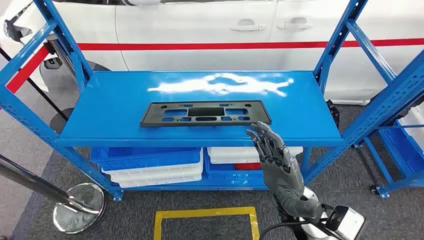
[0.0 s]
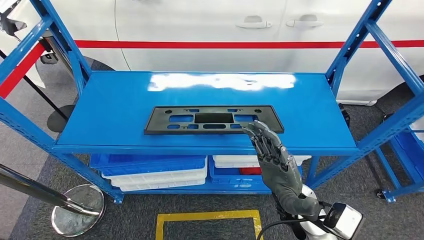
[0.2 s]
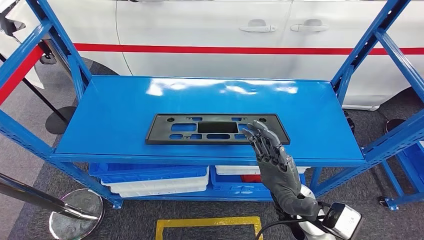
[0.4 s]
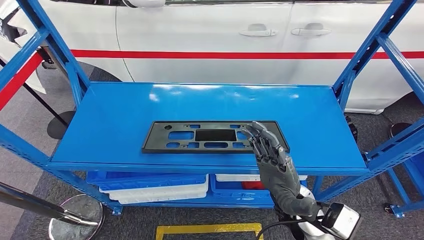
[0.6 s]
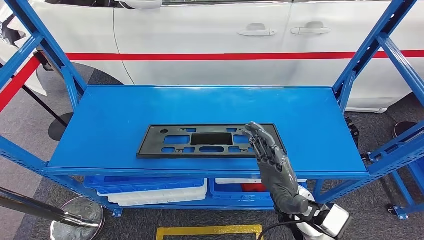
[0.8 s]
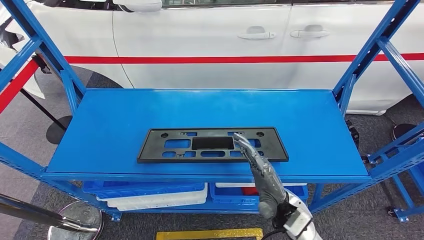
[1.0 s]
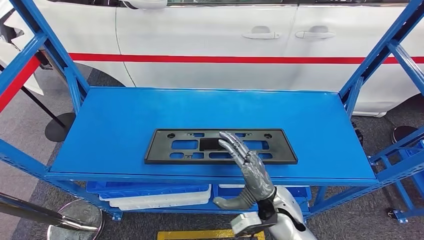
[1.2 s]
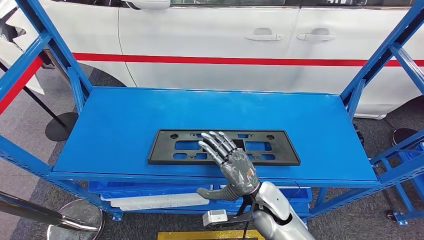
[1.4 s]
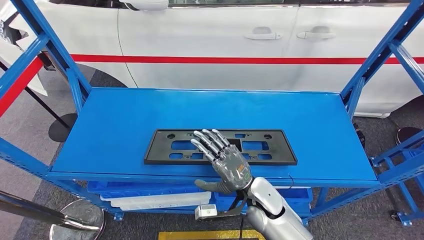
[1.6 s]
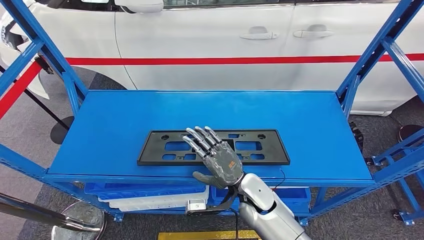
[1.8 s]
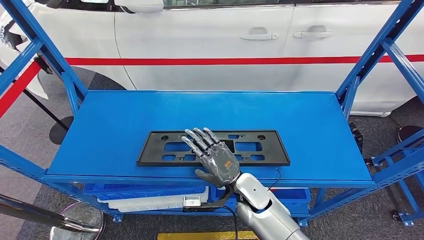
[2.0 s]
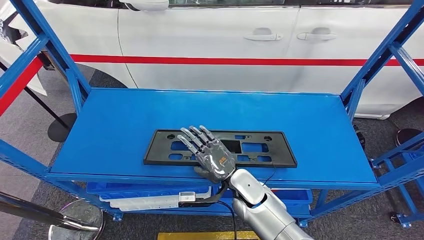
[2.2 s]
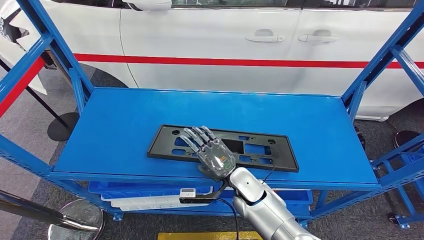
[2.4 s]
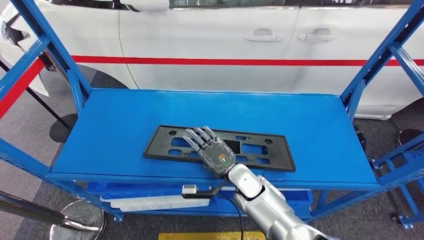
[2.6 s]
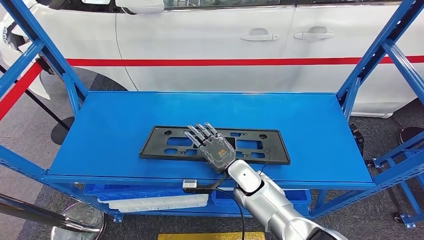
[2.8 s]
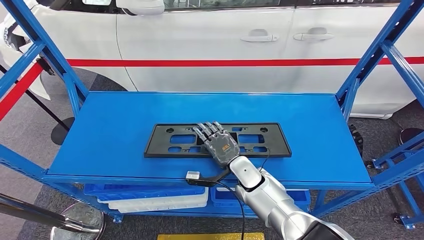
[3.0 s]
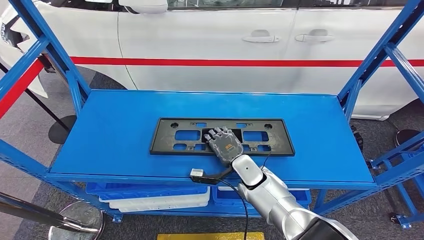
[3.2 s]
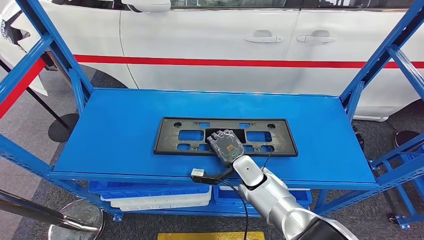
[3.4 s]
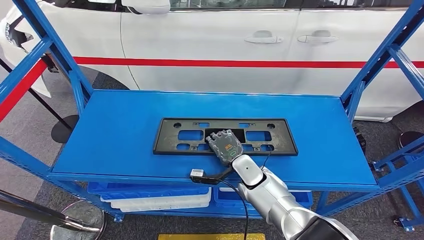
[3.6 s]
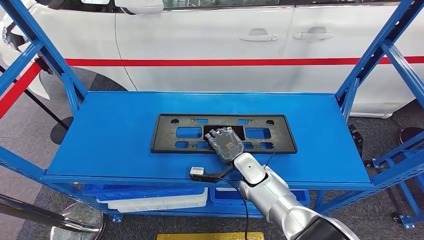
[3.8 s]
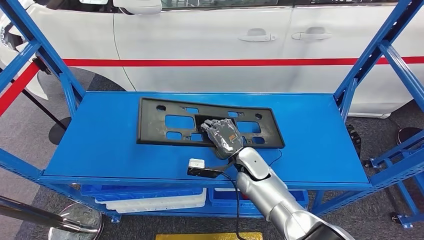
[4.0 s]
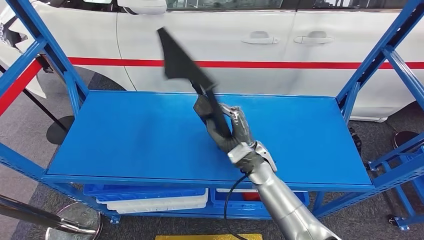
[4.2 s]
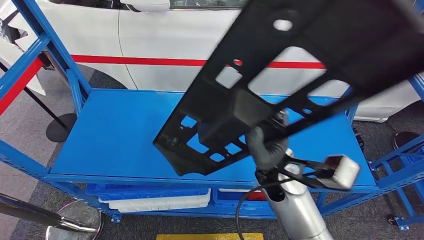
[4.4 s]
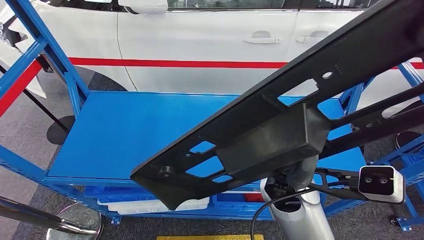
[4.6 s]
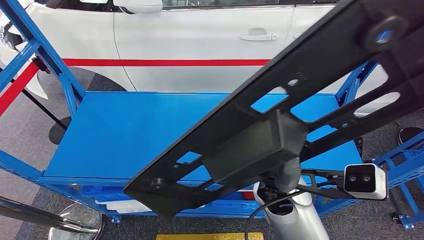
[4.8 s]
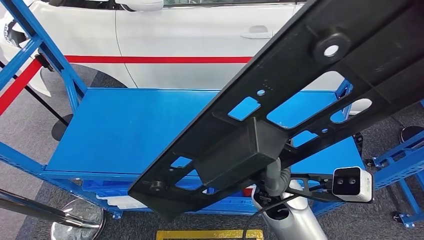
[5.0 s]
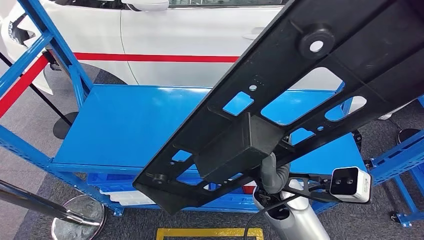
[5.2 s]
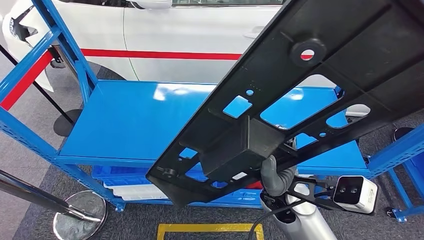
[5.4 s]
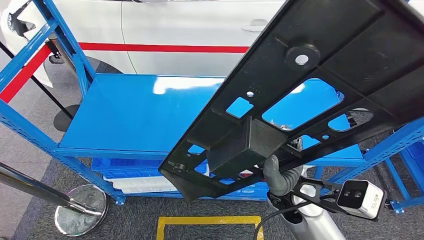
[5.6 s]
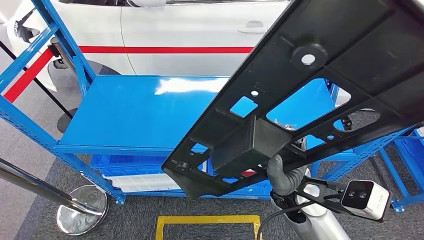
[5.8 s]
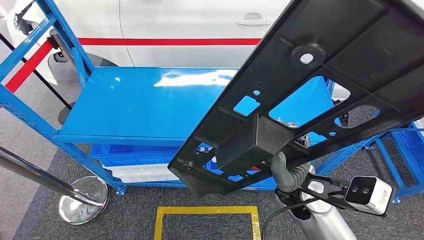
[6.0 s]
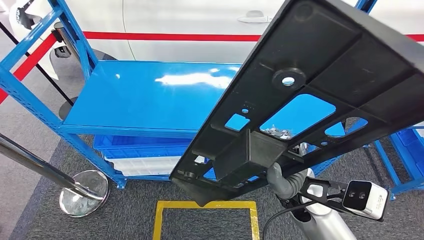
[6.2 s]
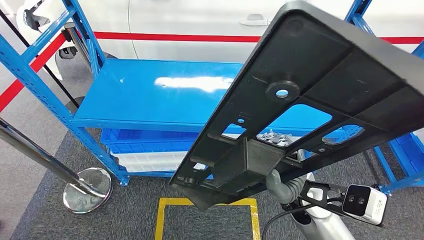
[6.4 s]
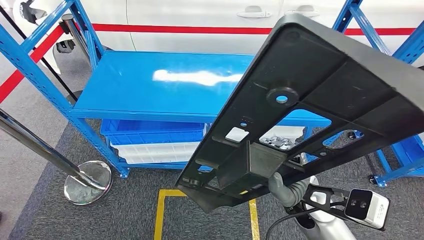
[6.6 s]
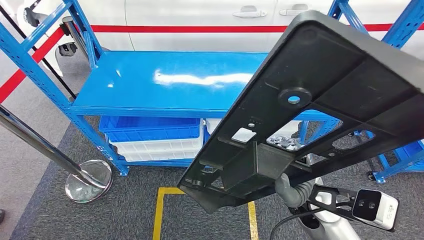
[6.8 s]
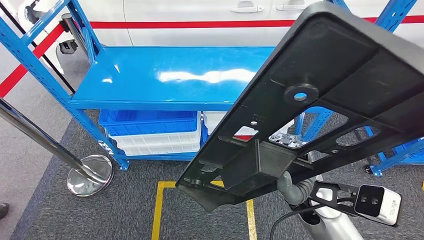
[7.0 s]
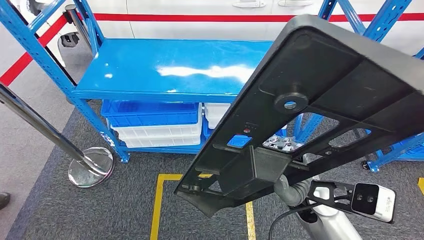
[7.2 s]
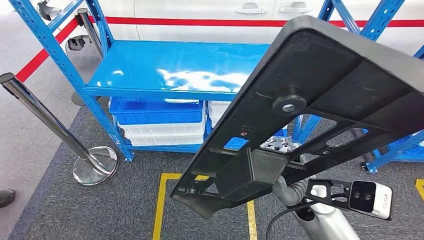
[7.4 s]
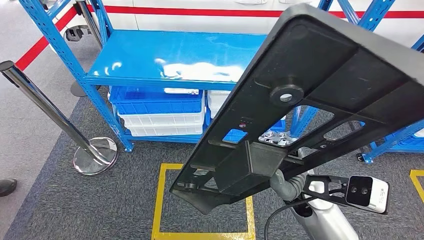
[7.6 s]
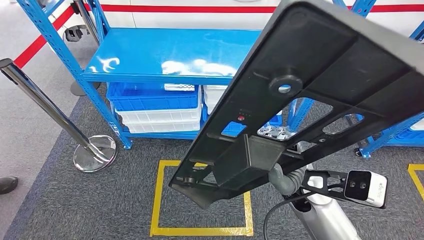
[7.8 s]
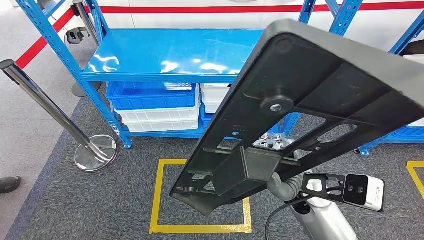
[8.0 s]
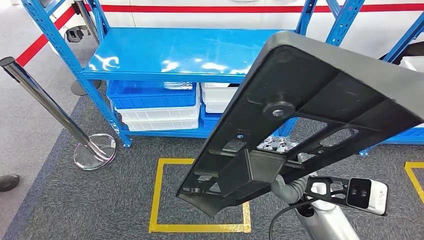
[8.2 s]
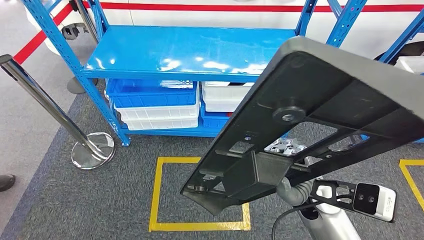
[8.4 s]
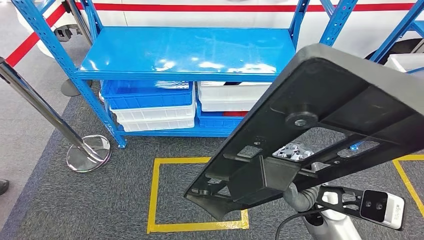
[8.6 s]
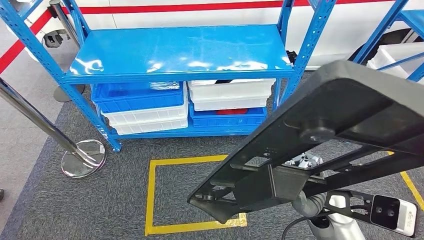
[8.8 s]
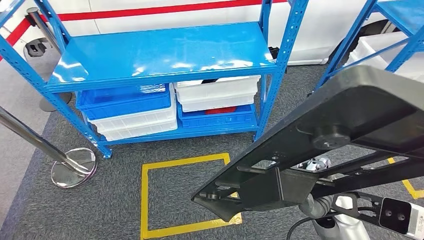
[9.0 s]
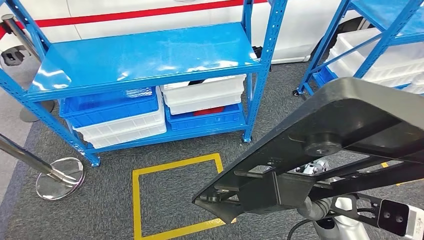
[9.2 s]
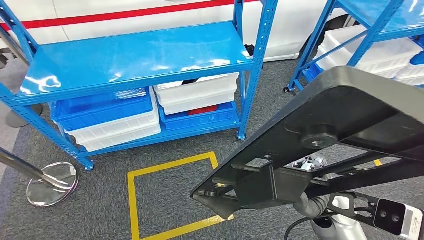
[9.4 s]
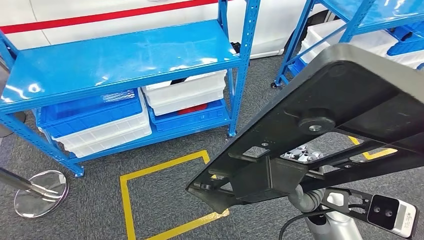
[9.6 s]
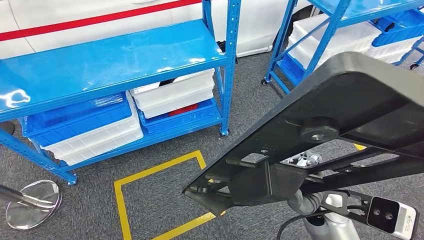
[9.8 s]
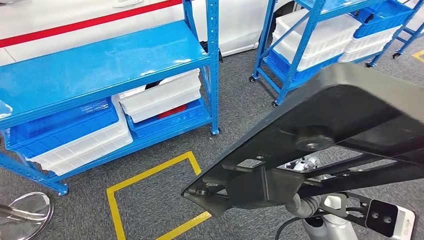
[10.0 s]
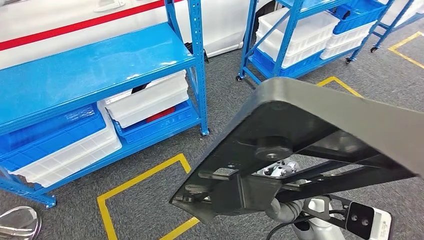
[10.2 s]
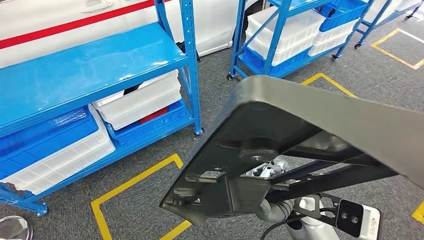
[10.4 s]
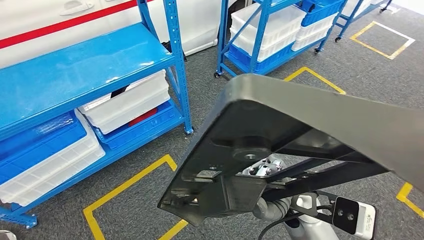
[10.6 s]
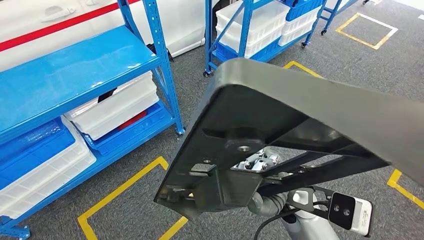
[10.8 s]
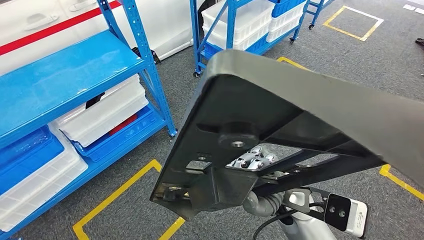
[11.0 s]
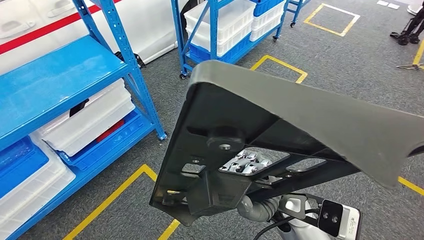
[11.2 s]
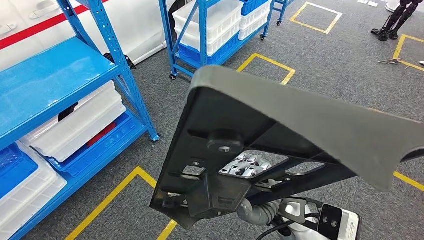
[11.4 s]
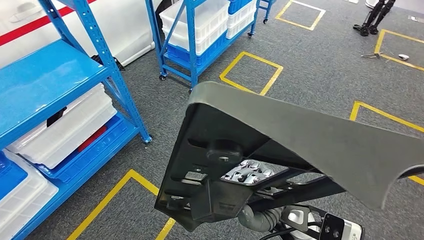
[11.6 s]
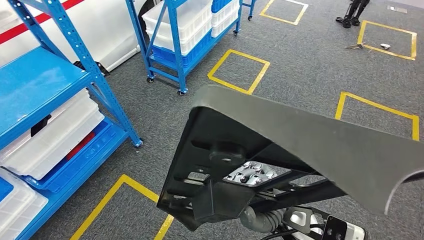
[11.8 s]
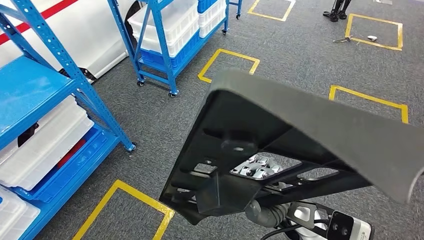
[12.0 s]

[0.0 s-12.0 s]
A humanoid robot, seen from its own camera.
Step, 0.0 to 5.8 s: Pick up the large material from the shelf.

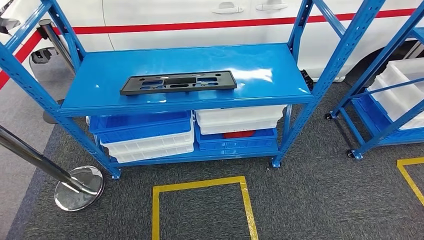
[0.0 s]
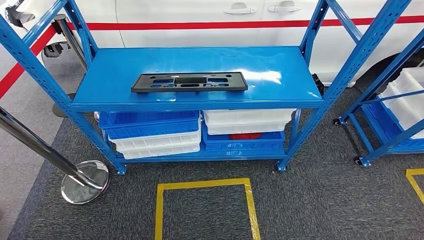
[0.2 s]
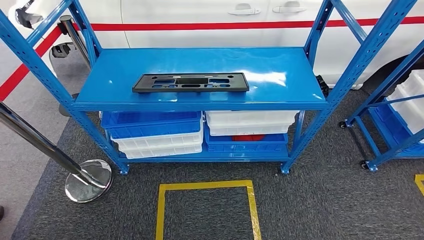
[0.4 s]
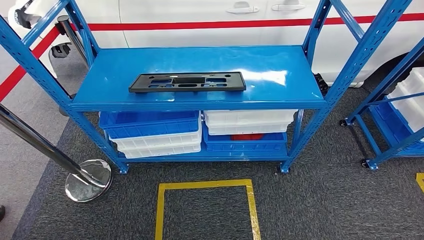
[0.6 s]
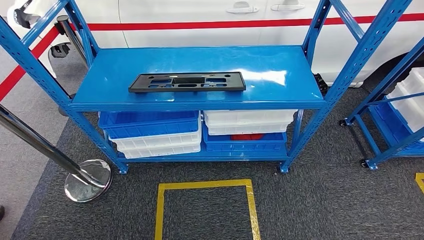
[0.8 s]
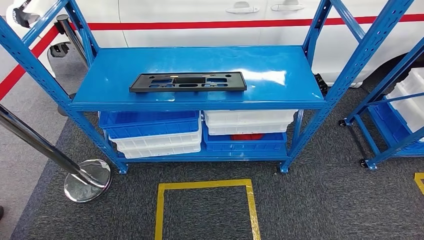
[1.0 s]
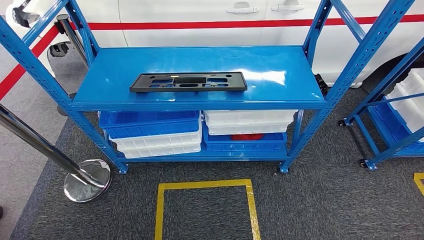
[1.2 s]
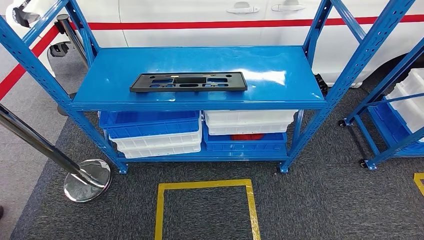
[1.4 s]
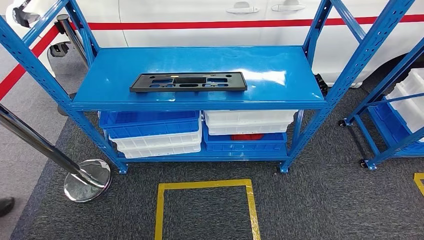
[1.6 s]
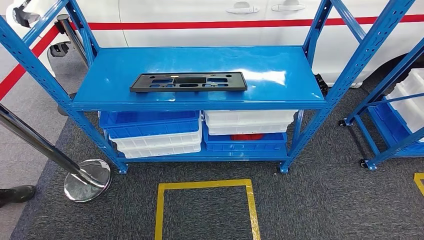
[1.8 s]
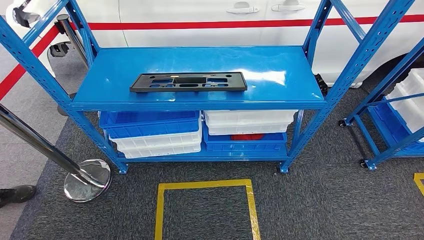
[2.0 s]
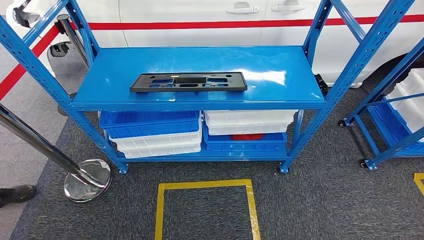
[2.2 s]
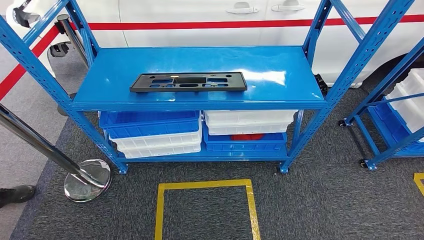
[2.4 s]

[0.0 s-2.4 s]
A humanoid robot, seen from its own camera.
Step, 0.0 to 2.4 s: Move to the initial position of the shelf.
1.2 to 2.4 s: The hands stay close to where they were, moving slightly.
